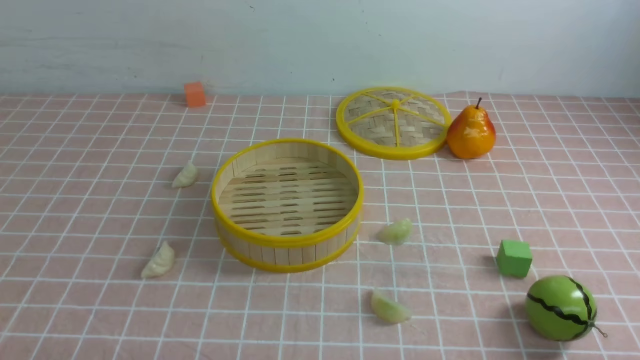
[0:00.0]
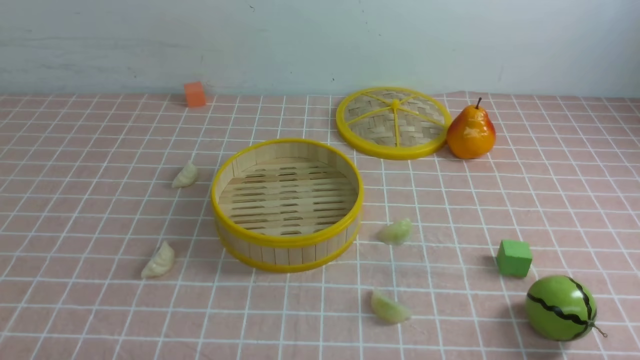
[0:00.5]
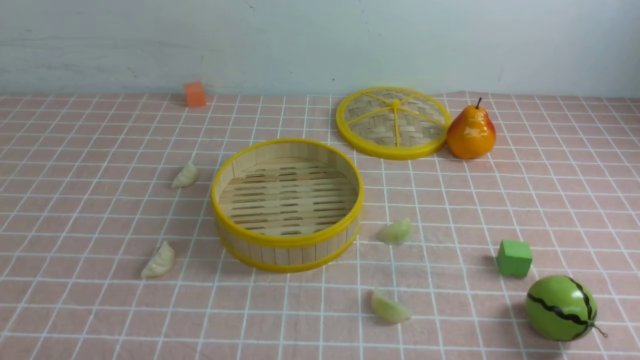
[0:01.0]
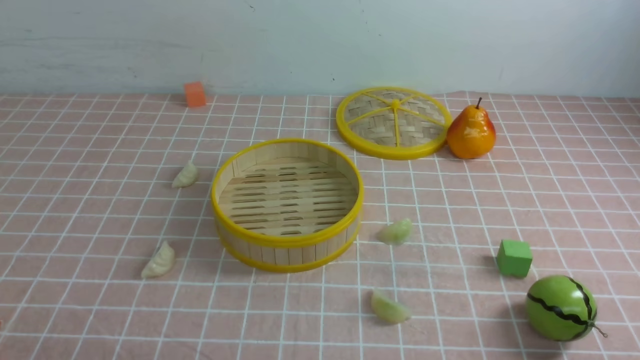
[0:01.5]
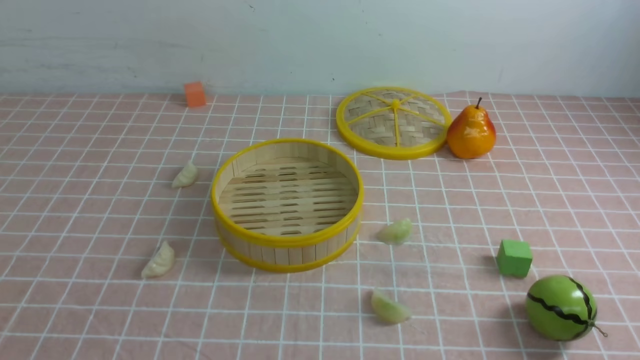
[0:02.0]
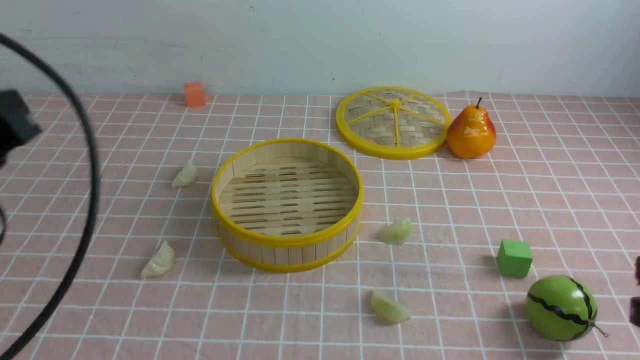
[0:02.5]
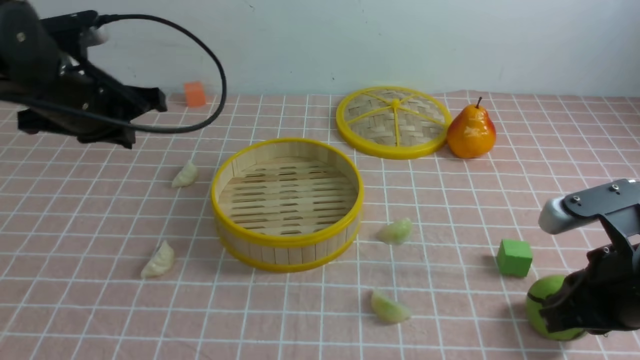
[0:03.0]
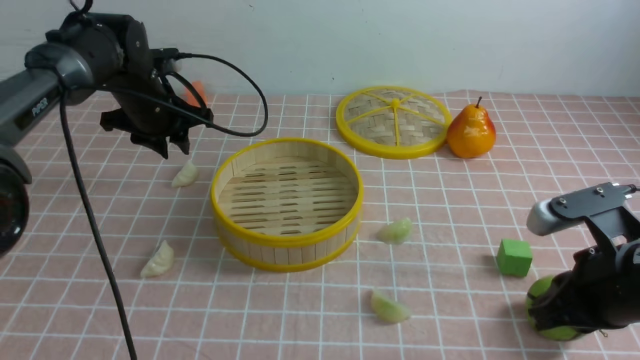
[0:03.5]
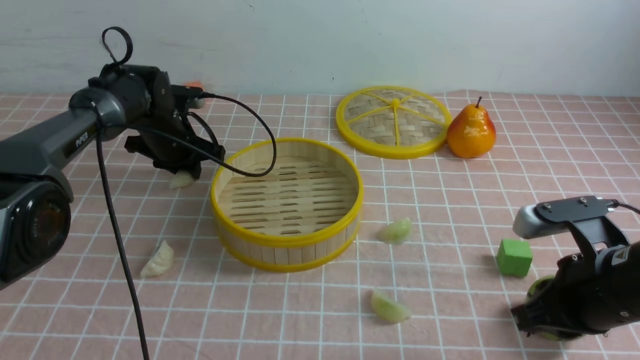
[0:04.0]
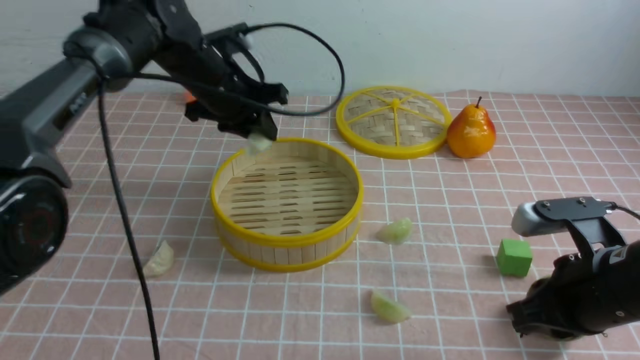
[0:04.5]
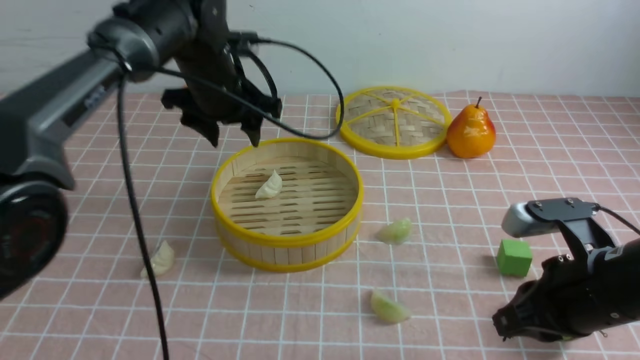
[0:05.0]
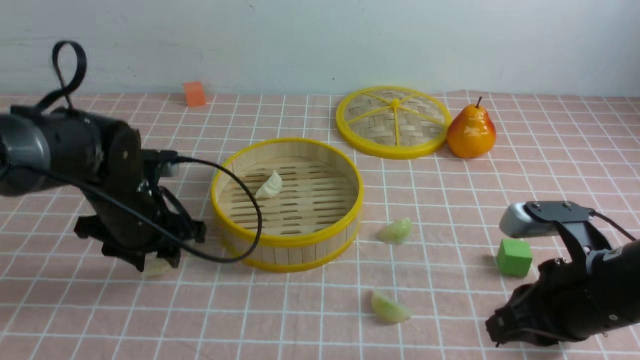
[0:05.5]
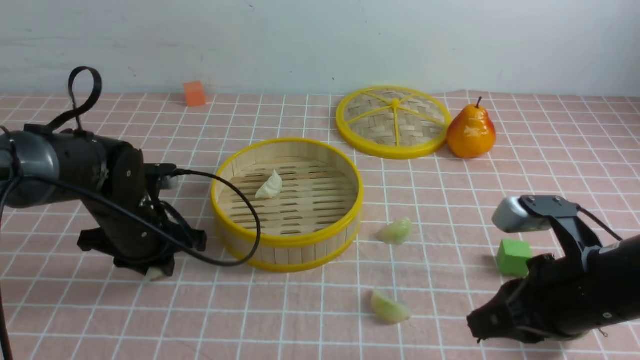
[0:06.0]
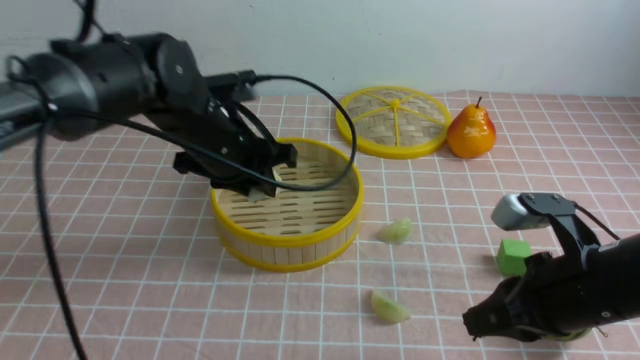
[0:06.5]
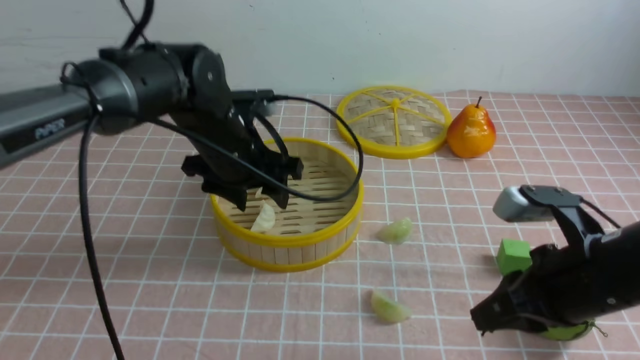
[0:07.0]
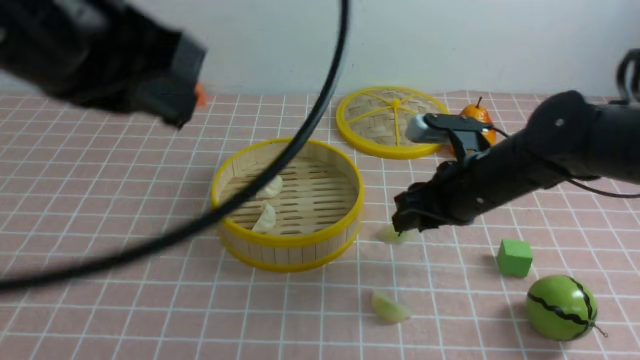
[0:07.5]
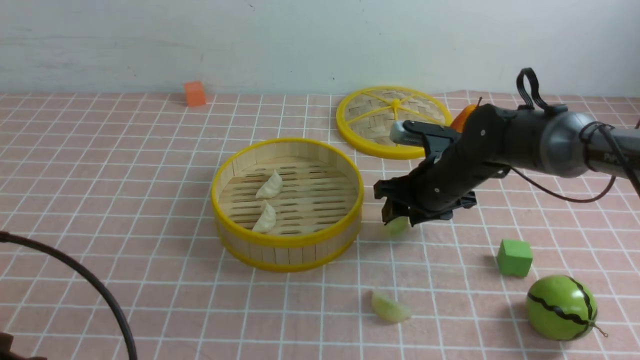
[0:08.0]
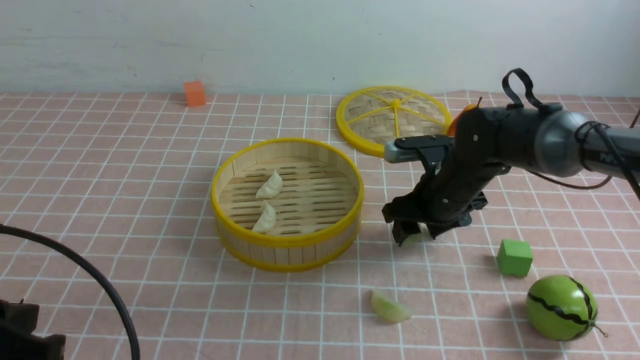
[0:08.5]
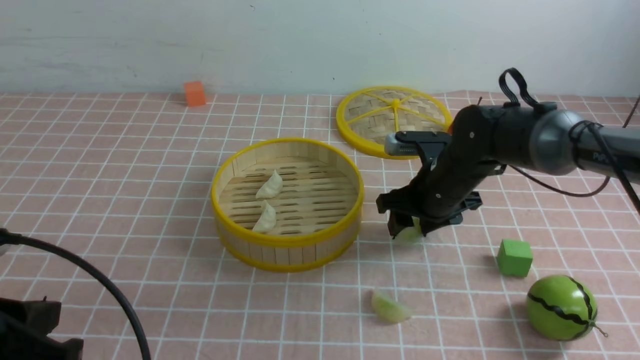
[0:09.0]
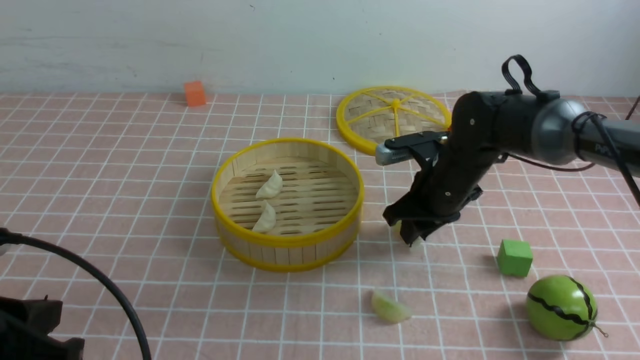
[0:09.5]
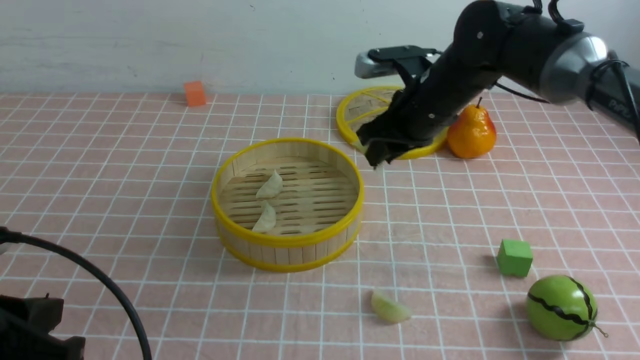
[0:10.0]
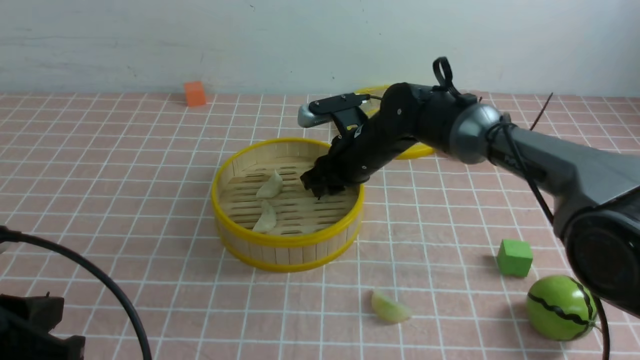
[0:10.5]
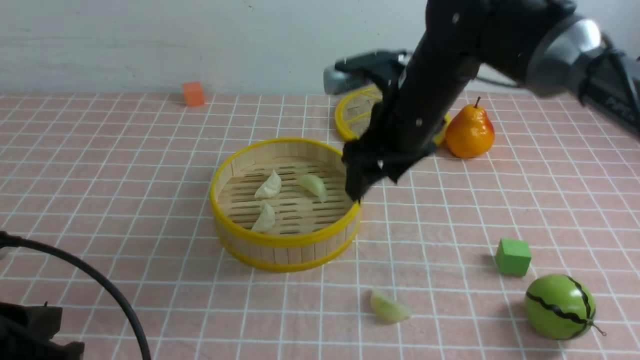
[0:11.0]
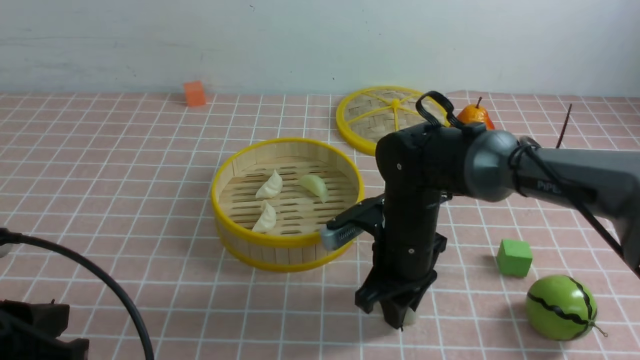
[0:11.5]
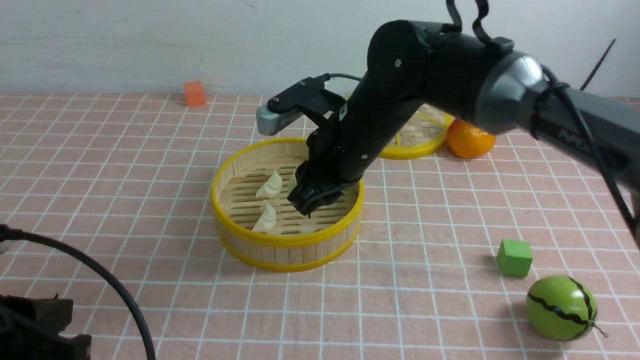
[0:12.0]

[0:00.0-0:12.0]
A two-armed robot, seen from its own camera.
Task of the whole recording: put the dumplings into the steamer on the table with the pink tablecloth.
Step, 0:00.0 to 0:04.0: use the left arm to grab a dumpling.
Step, 0:05.0 to 0:06.0: use the left arm to grab a dumpling.
Step, 0:07.0 to 0:09.5: use the right arm to grab a dumpling.
Step, 0:10.0 to 0:10.5: use the right arm to put the dumpling into the steamer.
Step, 0:11.0 to 0:11.5: use the right arm to grab a dumpling.
0:02.0 to 0:04.0: The left gripper is displaced forward by approximately 50 cm, while the right gripper travels forward by some 20 cm.
0:04.0 to 0:06.0: The left gripper heads backward, covering some 15 cm, and opens, then closes once more.
0:06.0 to 0:08.0: The right gripper goes about 20 cm forward, and opens up; the left gripper moves backward and upward, approximately 25 cm, and closes.
0:08.0 to 0:10.0: The right gripper moves upward, some 10 cm, and closes its fingers.
0:10.0 to 0:12.0: The right gripper heads to the left and backward, covering approximately 10 cm, and opens and closes again.

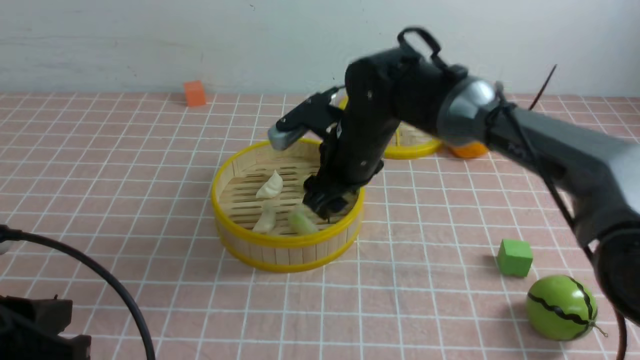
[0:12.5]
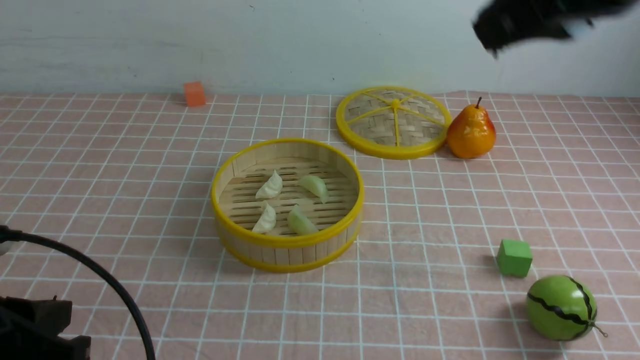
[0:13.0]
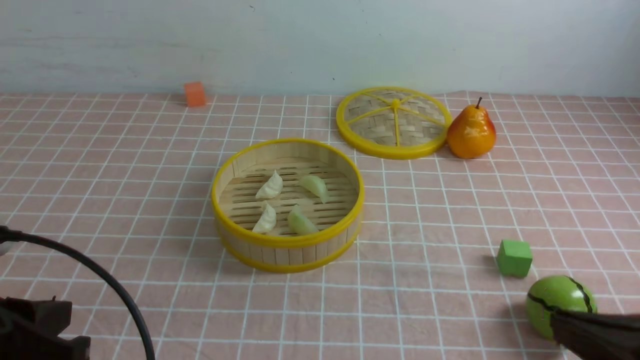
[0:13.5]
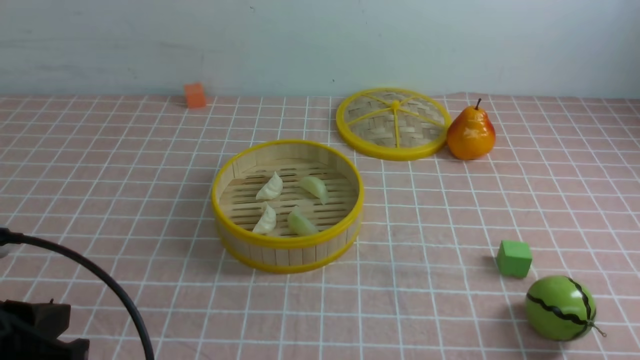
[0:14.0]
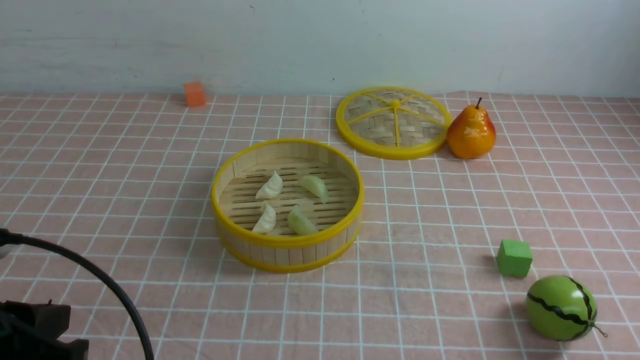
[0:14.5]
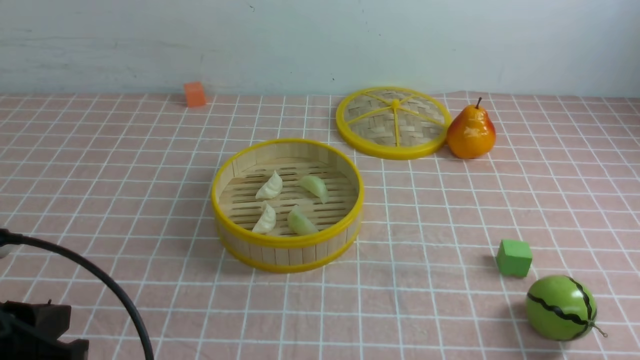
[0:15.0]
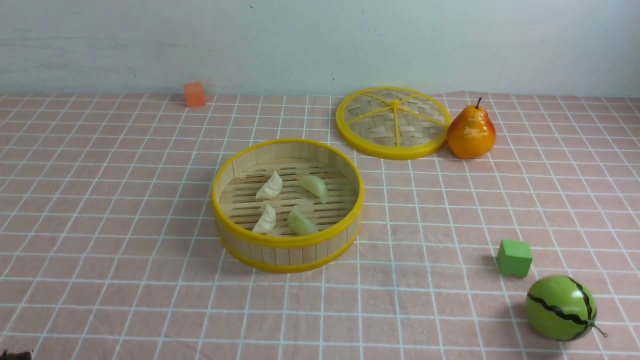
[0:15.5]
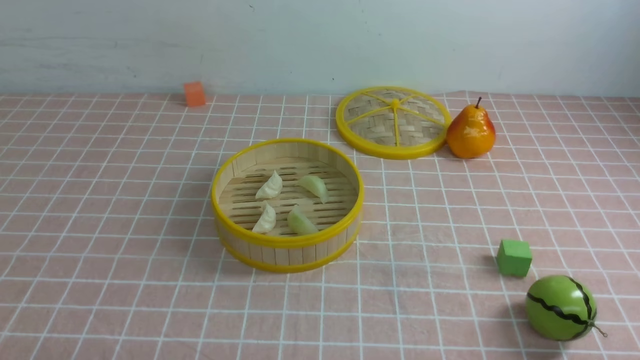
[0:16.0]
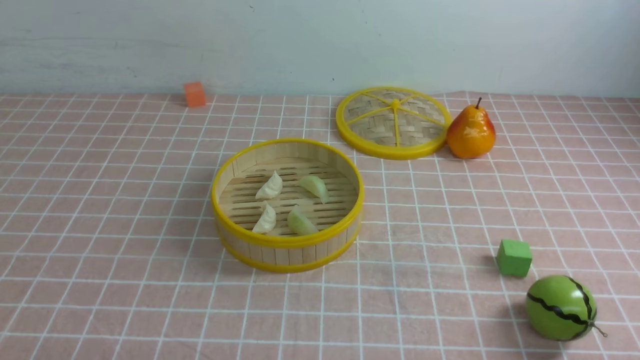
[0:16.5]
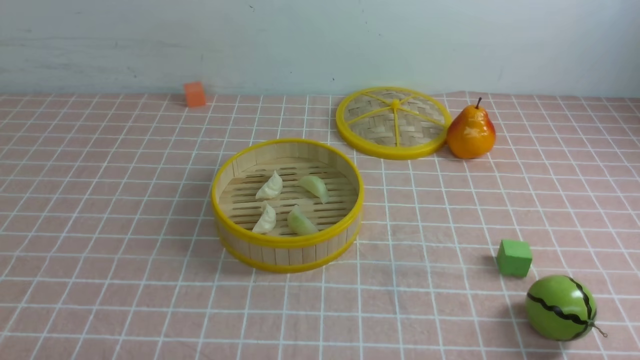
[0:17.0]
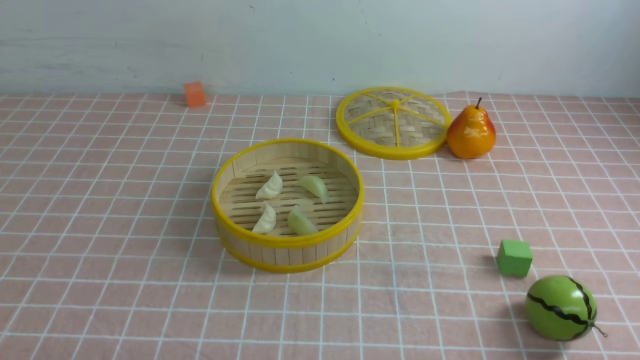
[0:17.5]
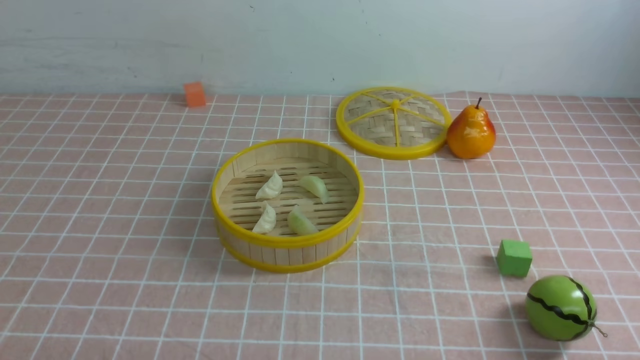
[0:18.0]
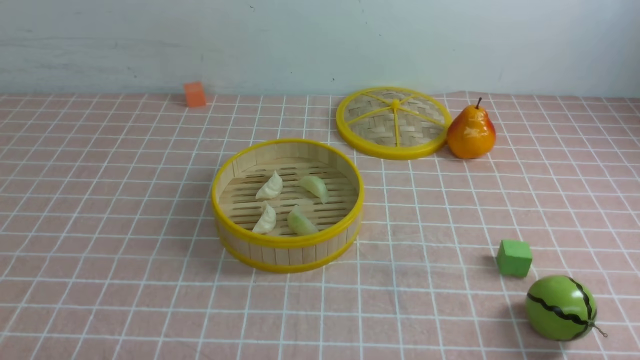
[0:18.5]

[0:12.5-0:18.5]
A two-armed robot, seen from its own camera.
Task of the whole recording: put the dumplings into the steamer on the table with the pink tablecloth.
0:12.5 to 0:14.5: The right gripper goes some 40 cm backward and to the right, and closes up.
0:14.5 to 0:16.5: The left gripper goes about 15 cm downward and backward.
0:16.5 to 0:18.5: Both grippers stay put.

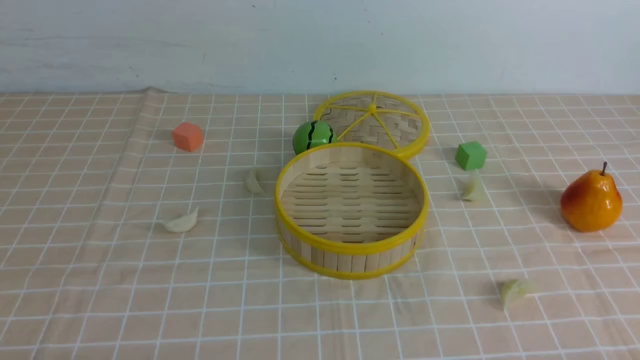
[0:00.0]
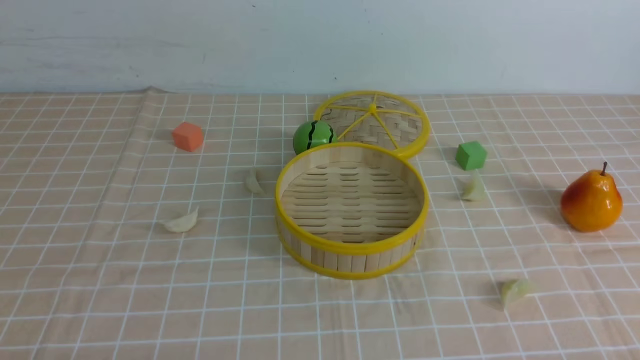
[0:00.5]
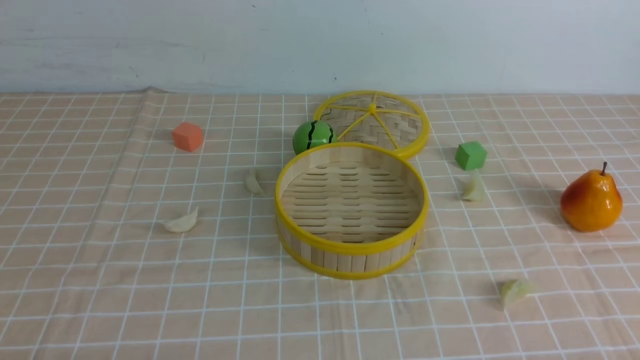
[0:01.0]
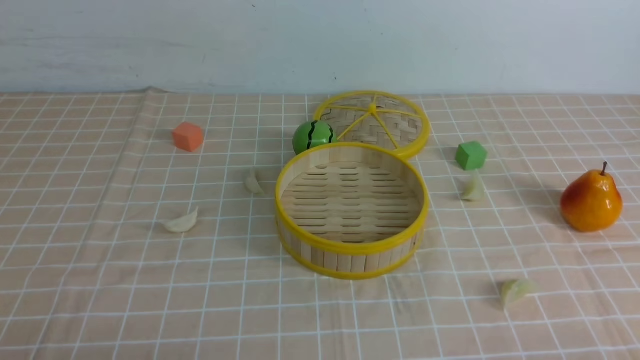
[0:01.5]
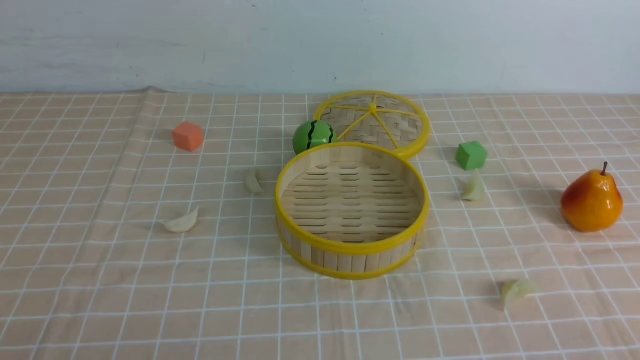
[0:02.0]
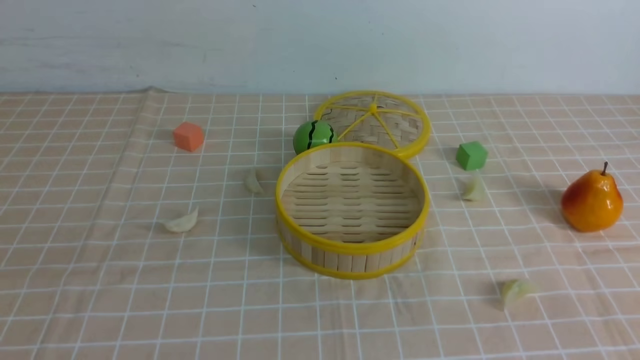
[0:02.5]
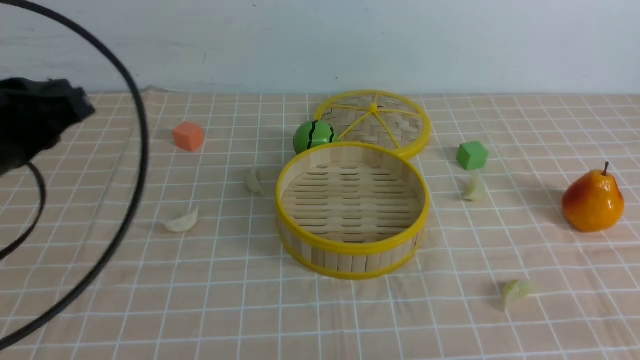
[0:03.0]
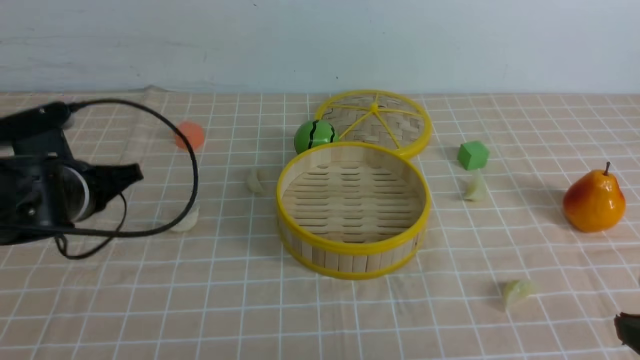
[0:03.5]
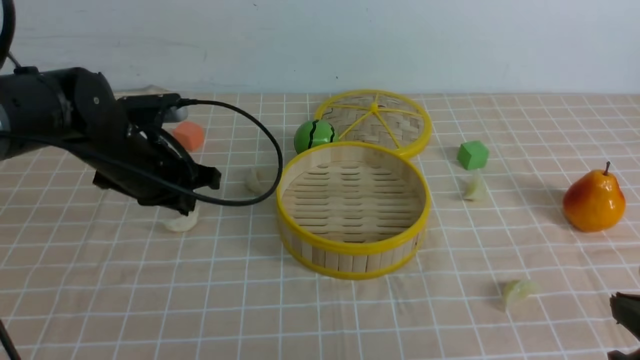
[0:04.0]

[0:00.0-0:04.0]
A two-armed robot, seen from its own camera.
Task of the whole recording: put the dumplings into the steamer on the table with the brown tablecloth.
0:02.0 to 0:04.0: The right gripper shifts some 10 cm forward, and closes, while the left gripper moves forward, some 35 cm.
